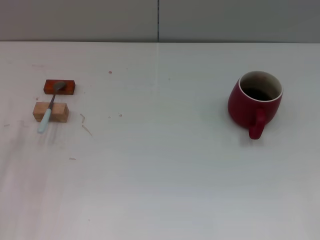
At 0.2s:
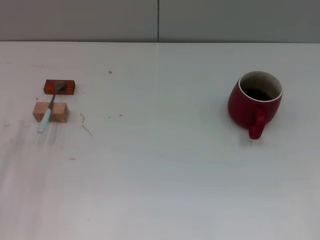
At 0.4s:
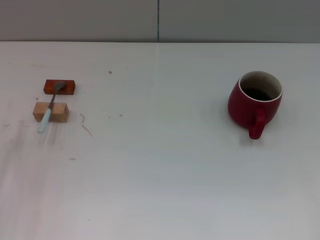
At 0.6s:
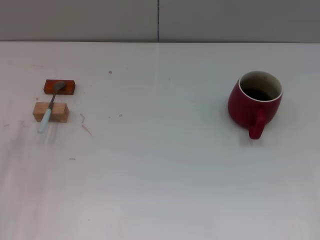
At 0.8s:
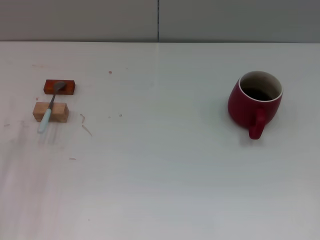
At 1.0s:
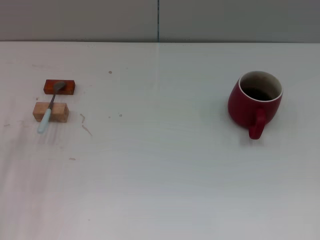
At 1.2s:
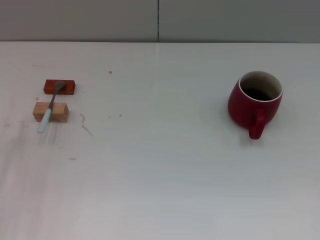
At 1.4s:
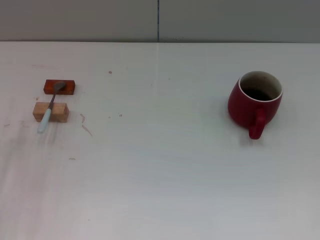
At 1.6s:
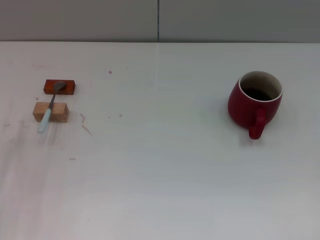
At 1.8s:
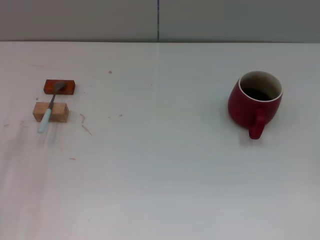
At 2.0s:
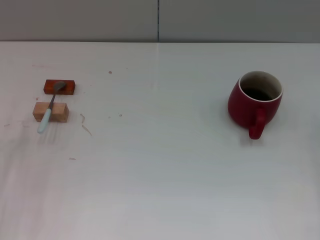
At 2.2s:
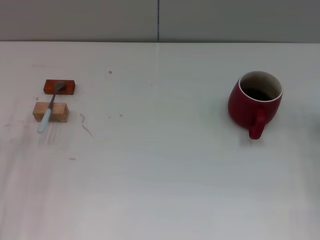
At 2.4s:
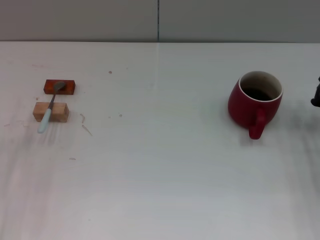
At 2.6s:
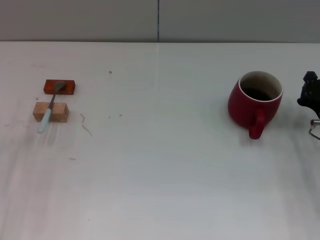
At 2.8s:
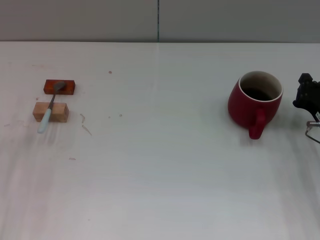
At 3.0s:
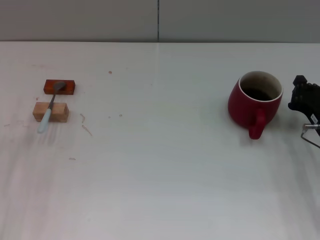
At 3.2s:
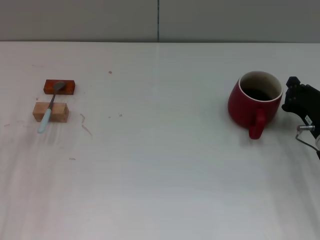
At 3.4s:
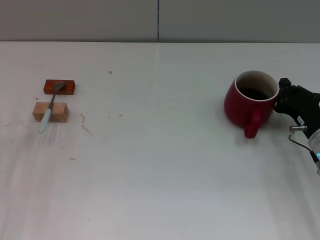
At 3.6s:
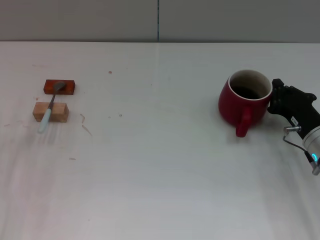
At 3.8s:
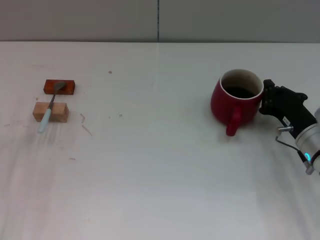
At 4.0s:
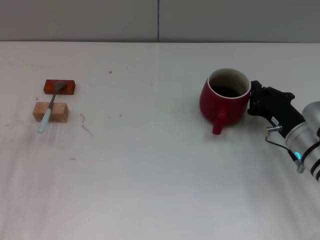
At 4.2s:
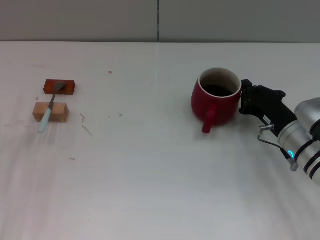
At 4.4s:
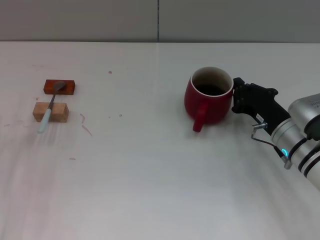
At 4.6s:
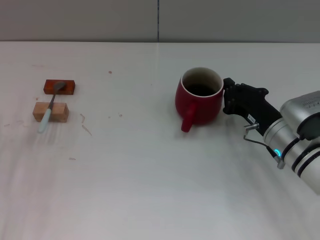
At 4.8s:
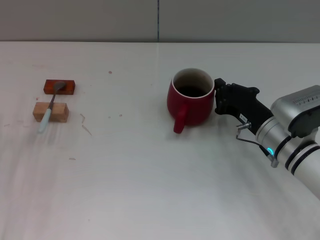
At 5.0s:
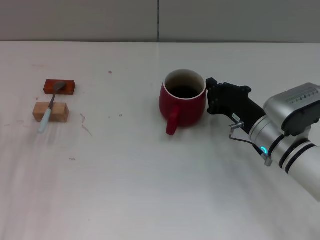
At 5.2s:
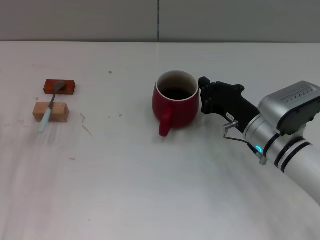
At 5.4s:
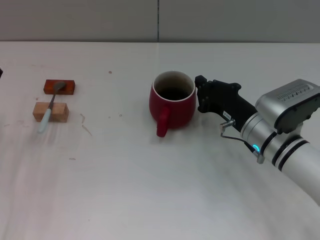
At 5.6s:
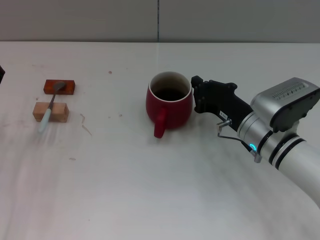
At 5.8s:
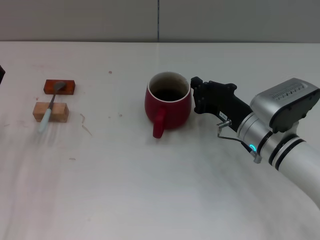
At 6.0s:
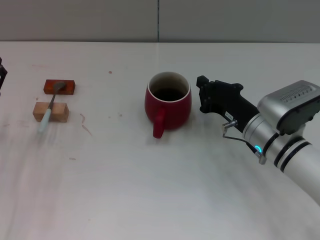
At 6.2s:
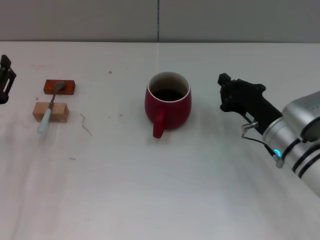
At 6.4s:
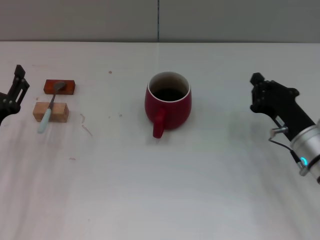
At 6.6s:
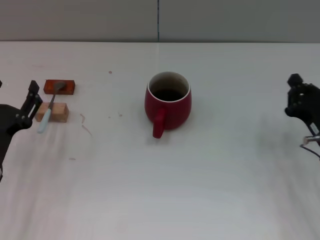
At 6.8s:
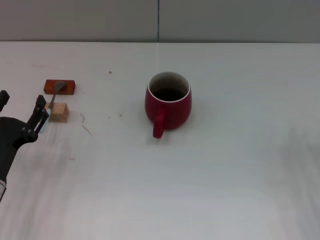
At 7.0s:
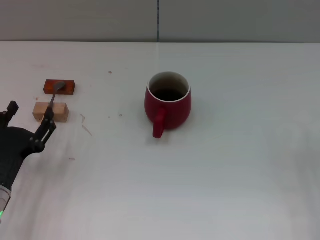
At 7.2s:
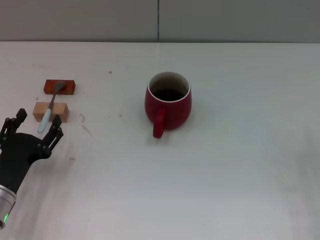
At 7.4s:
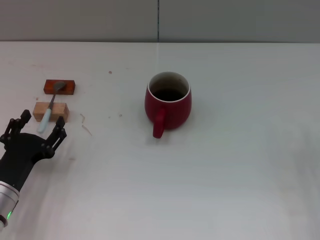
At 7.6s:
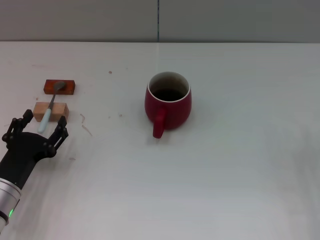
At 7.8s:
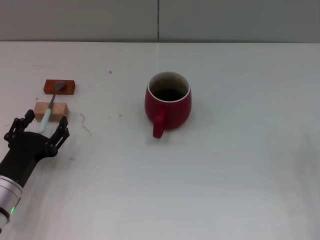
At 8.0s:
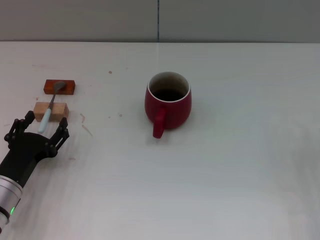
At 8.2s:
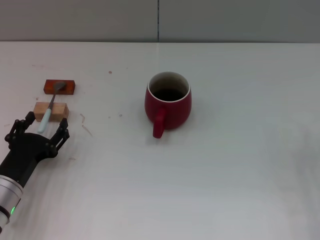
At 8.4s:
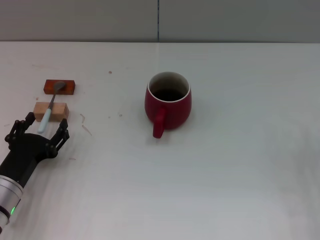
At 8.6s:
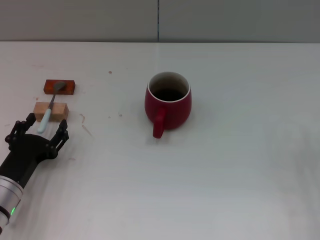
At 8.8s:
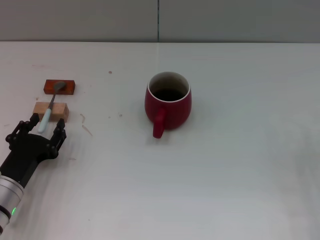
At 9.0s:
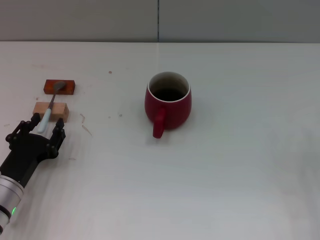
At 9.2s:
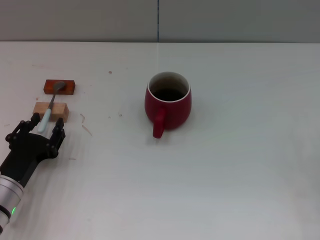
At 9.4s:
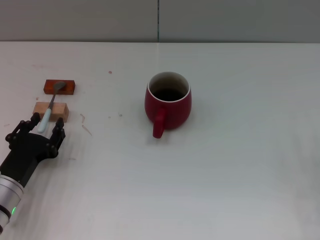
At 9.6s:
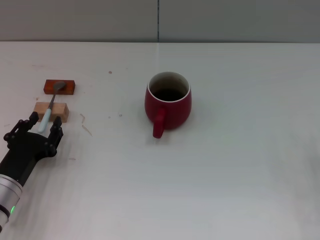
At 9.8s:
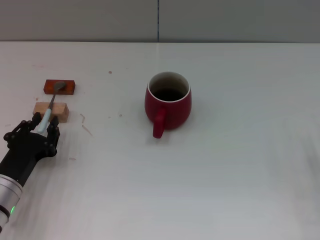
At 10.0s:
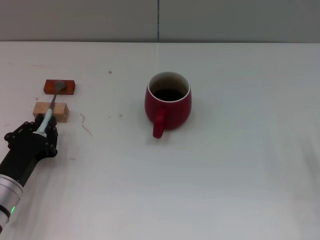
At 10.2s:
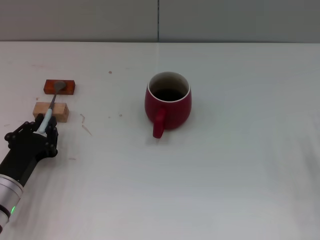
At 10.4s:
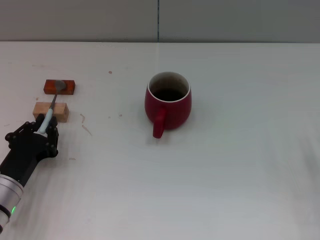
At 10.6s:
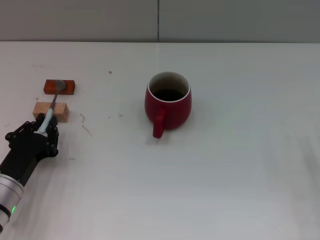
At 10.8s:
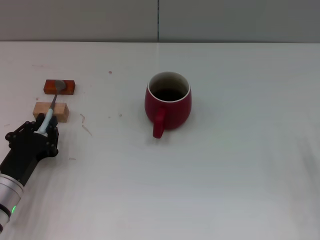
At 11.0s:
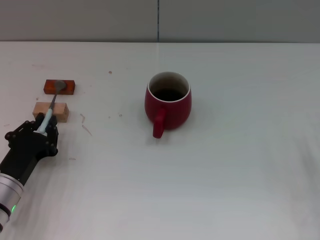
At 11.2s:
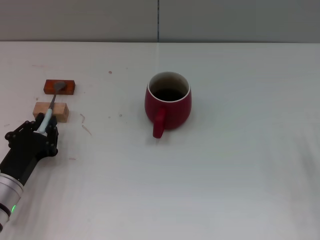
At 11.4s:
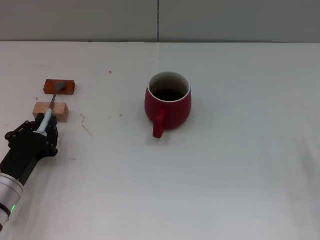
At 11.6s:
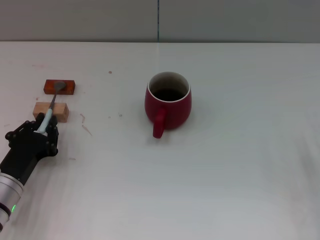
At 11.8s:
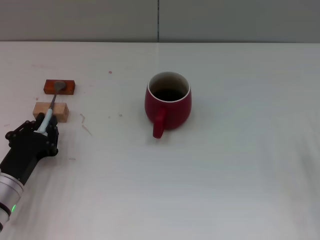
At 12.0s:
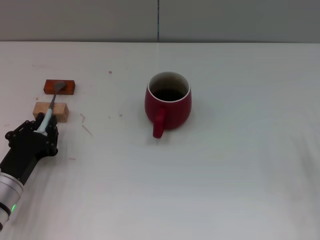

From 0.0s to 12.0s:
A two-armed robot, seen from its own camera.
Task of the whole recording: Move the red cup to the center, lift the blue spoon, stir it three times in the cup, and put the spoon into the cup.
Step, from 0.0s to 6.0s: Move the cup with coffee to the center of view with the right gripper.
From 1.6s to 3.0s: The right gripper heads forward and to the left, covering approximately 10 cm.
From 3.0s to 4.4s: The right gripper is displaced to the left by approximately 5 cm.
From 4.4s to 6.0s: The grippers stay close to where they were, moving slightly.
From 6.0s to 7.6s: The right gripper is displaced to the right and backward by some 15 cm. Meanwhile the left gripper moves about 5 cm.
From 7.6s to 9.0s: Both grippers stay about where they are.
From 9.0s to 10.4s: The left gripper closes.
From 10.4s to 12.0s: Neither gripper changes place.

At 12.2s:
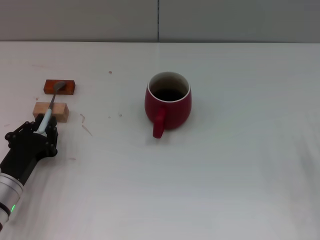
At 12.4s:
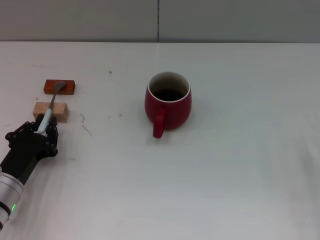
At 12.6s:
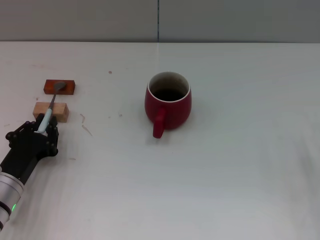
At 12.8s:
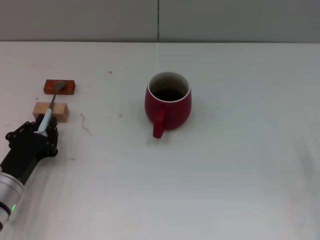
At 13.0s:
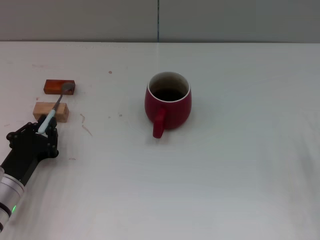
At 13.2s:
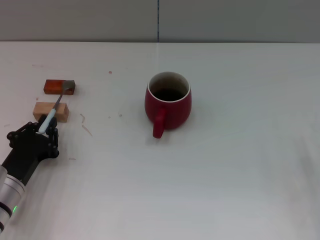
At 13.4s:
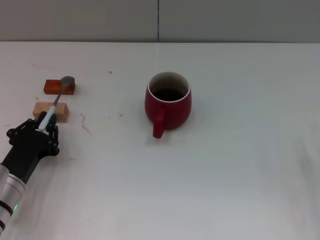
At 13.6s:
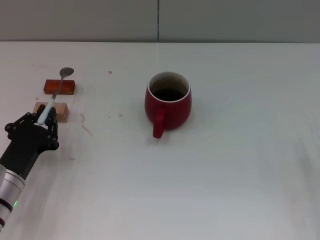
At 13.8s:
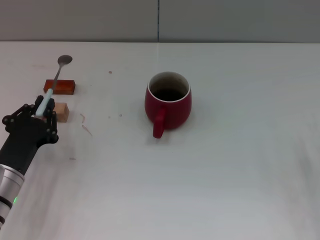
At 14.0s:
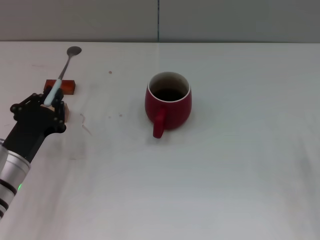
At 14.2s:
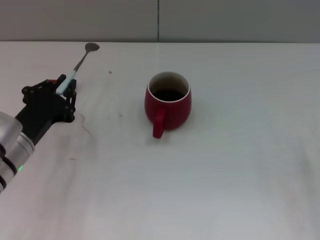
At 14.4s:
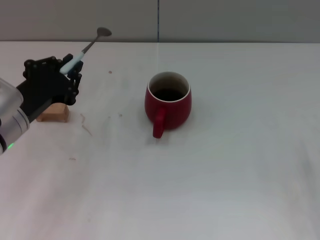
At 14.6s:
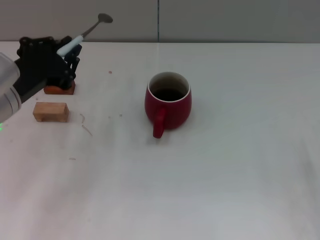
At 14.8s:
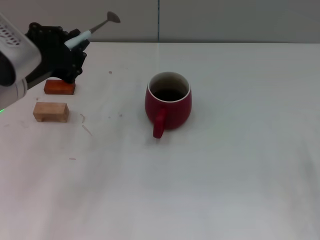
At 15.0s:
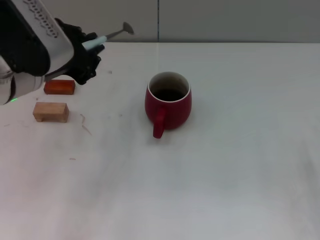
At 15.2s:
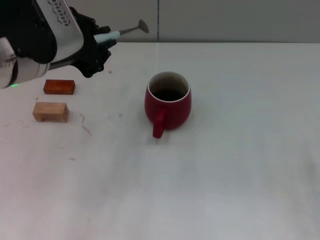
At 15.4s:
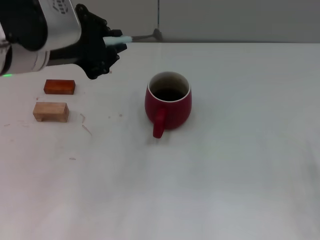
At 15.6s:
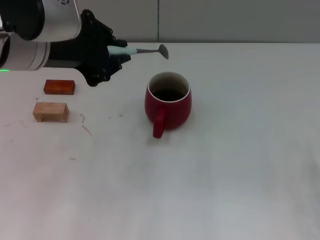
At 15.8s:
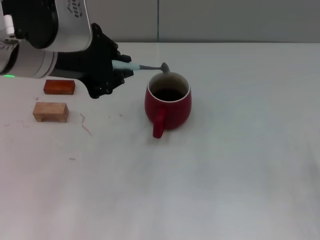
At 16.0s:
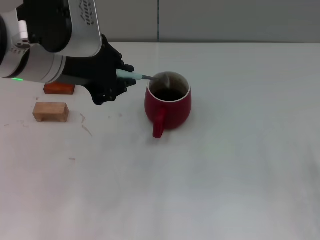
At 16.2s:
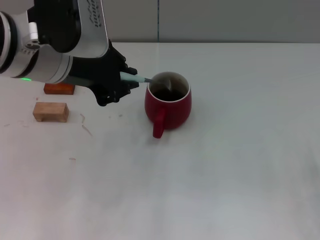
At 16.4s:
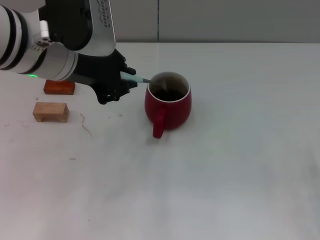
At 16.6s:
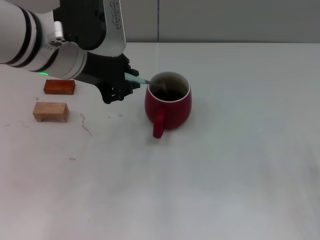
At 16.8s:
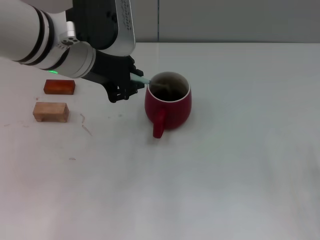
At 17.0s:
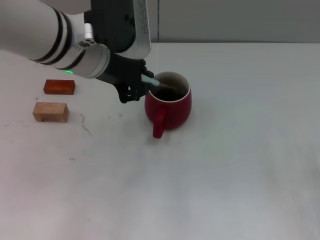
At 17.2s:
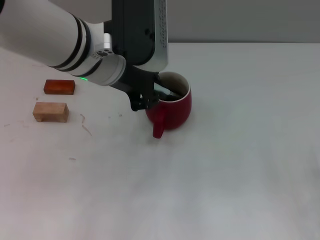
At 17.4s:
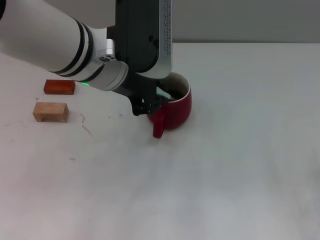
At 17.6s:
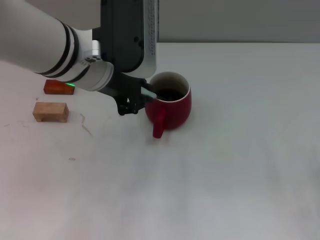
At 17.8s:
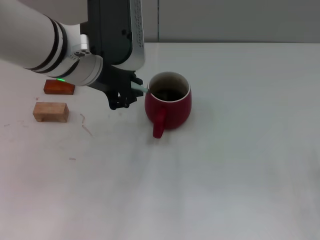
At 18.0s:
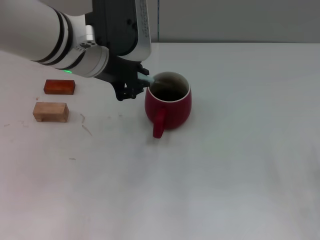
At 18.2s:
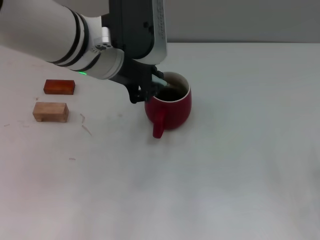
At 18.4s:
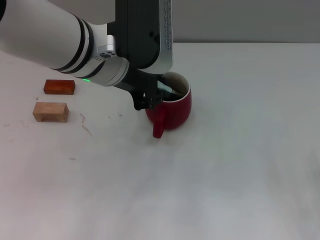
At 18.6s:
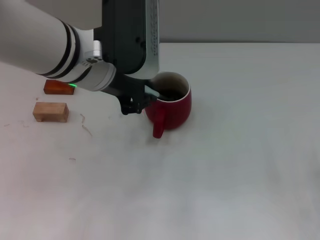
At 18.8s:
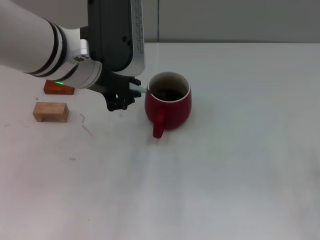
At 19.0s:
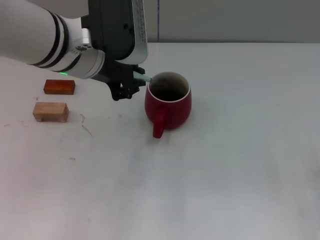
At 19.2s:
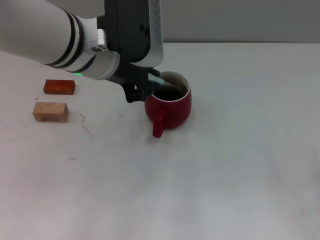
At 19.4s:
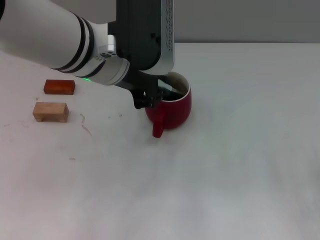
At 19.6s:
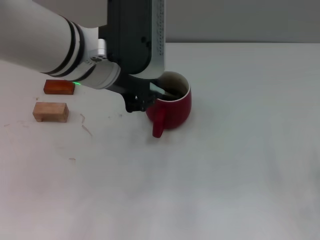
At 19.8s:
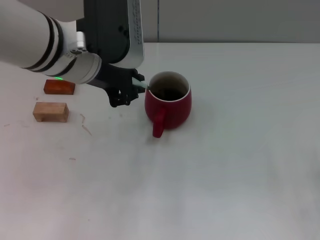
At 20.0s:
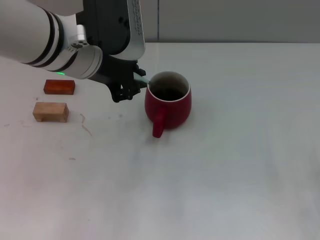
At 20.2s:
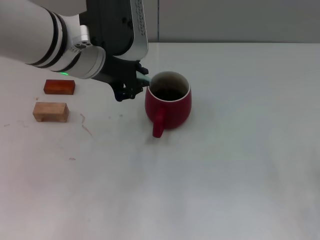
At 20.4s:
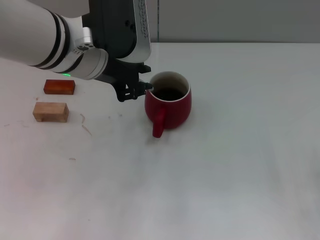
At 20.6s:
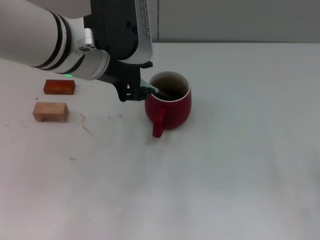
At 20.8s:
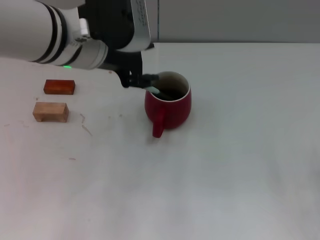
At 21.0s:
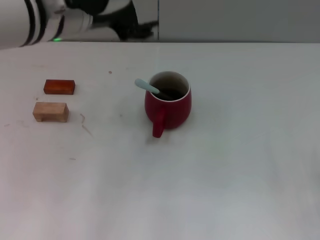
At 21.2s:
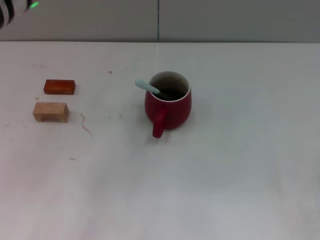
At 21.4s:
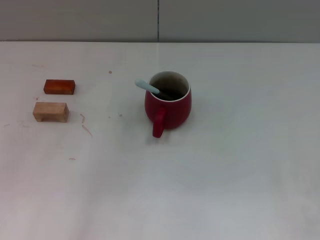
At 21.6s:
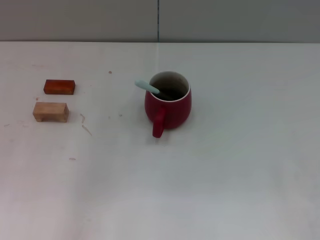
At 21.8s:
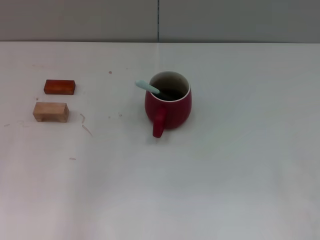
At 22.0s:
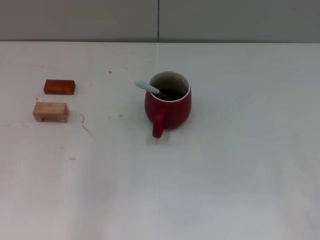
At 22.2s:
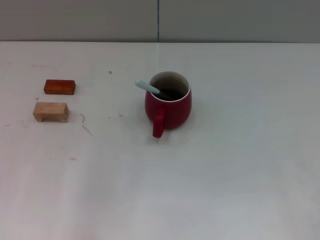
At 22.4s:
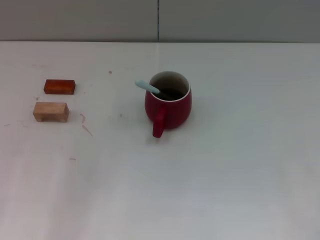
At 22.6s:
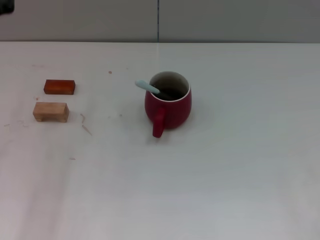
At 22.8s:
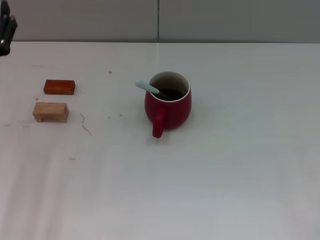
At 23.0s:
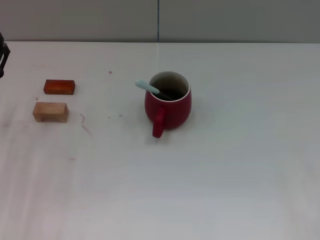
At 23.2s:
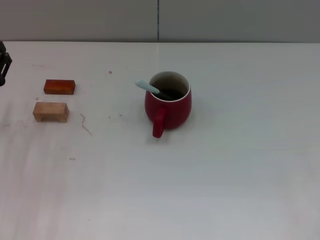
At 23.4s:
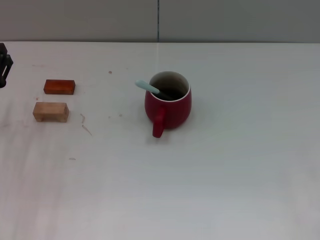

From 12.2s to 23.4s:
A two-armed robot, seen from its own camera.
Task of the whole recording: Move the red cup to the center, lift the blue spoon, stir it three times in the cup, and put the spoon into the cup.
Step, from 14.0s to 20.8s: Stir the coffee in the cup with the left gripper.
From 12.2s to 13.8s: The grippers move only a little.
From 13.8s to 15.4s: The left gripper shifts about 25 cm upward.
From 15.4s to 17.0s: The left gripper goes about 10 cm to the right and forward.
From 17.0s to 20.2s: The grippers make only small movements.
From 20.2s to 21.8s: The left gripper moves to the left and upward, some 10 cm, and opens its fingers.
From 21.8s to 23.4s: The left gripper shifts about 25 cm downward and to the left.
